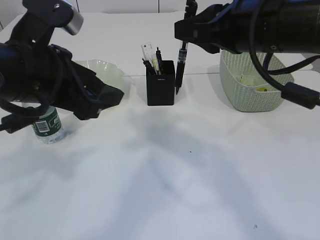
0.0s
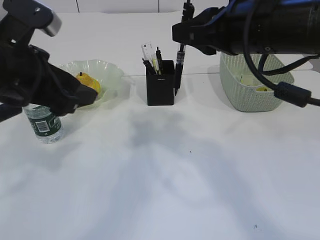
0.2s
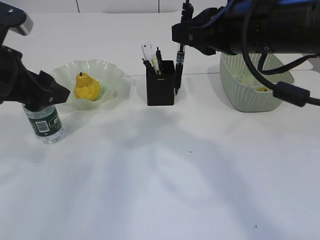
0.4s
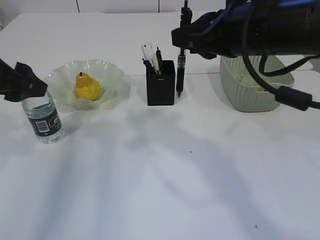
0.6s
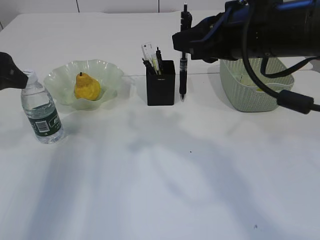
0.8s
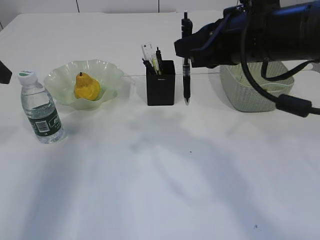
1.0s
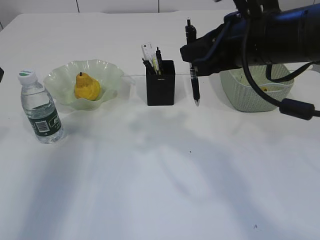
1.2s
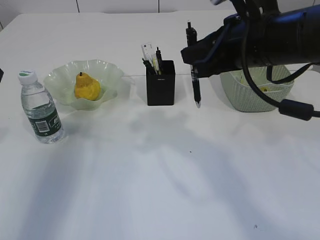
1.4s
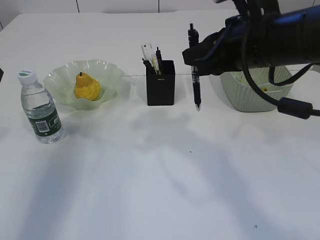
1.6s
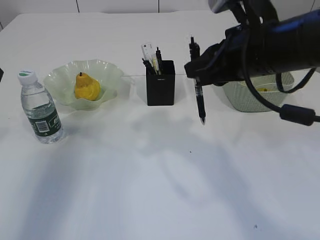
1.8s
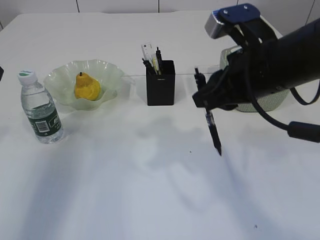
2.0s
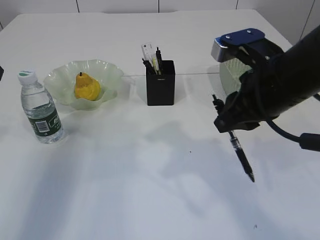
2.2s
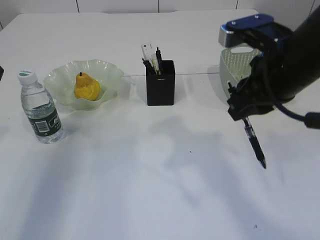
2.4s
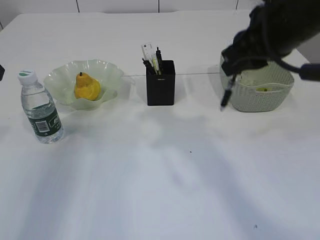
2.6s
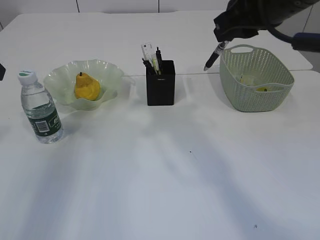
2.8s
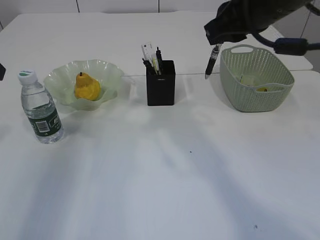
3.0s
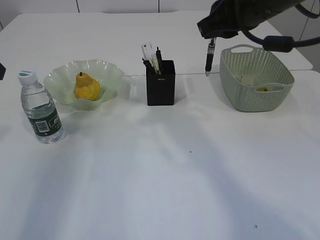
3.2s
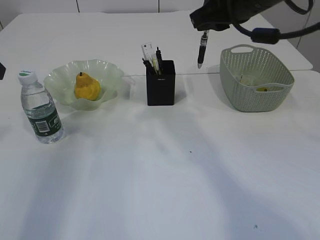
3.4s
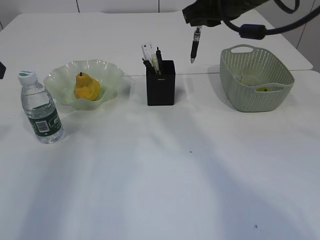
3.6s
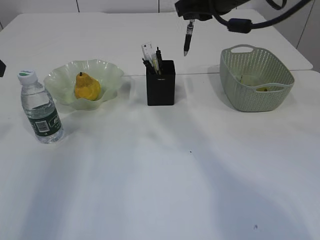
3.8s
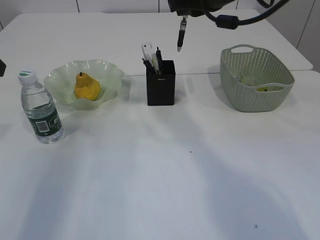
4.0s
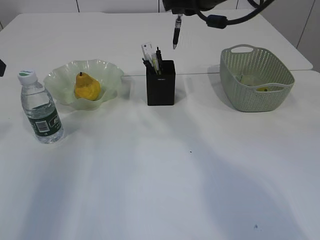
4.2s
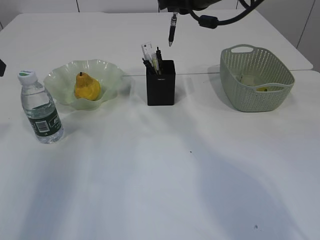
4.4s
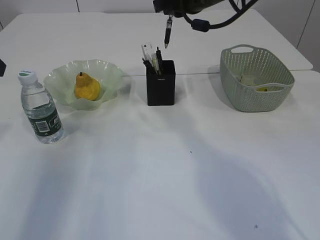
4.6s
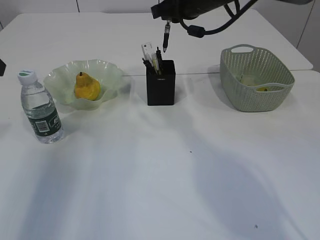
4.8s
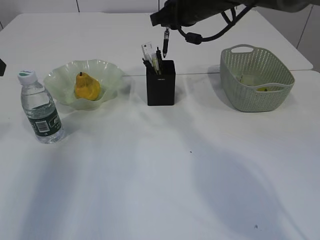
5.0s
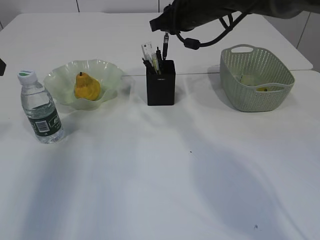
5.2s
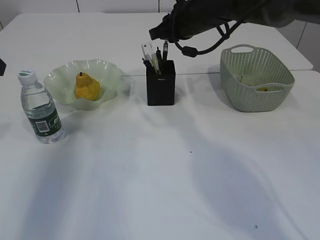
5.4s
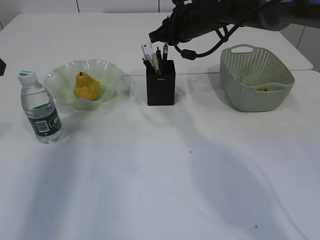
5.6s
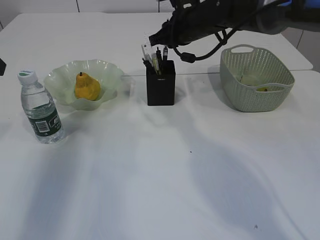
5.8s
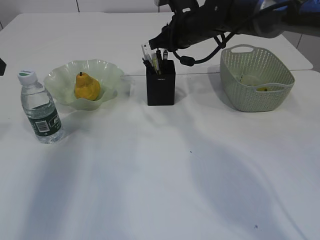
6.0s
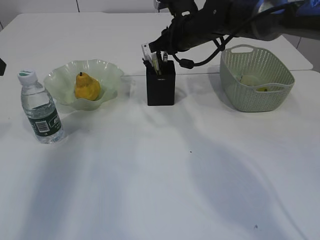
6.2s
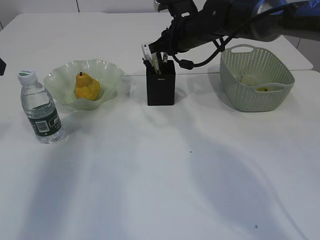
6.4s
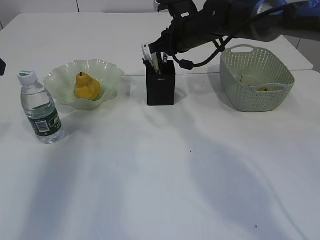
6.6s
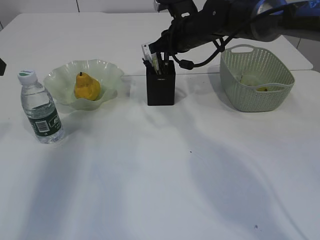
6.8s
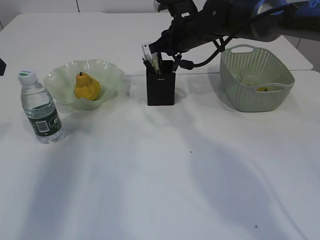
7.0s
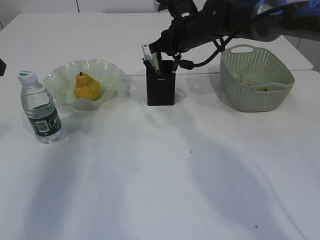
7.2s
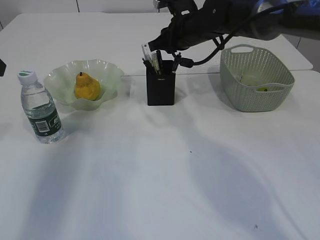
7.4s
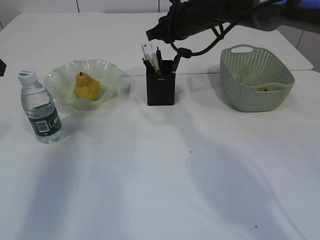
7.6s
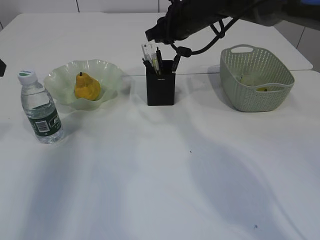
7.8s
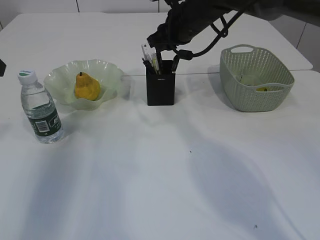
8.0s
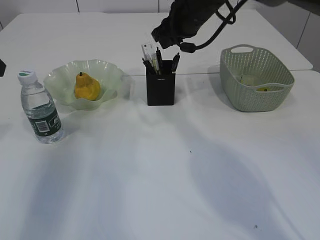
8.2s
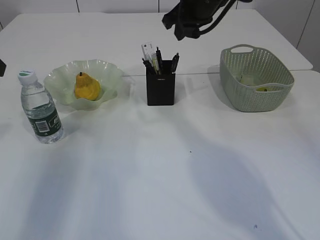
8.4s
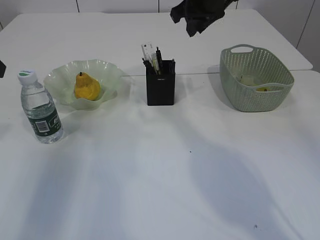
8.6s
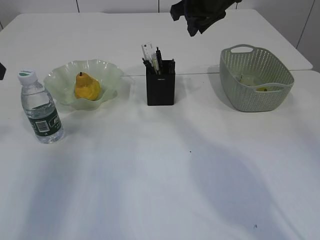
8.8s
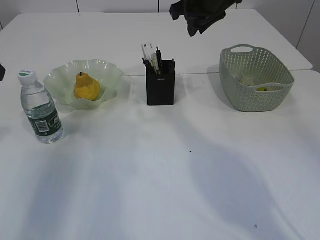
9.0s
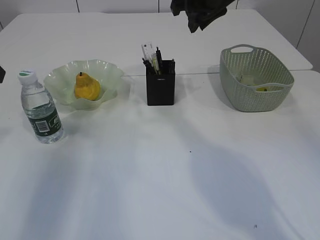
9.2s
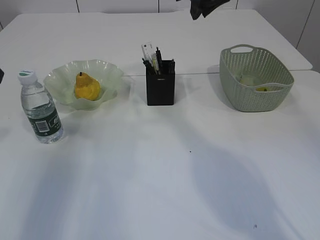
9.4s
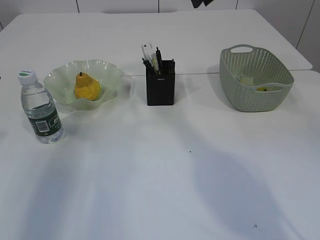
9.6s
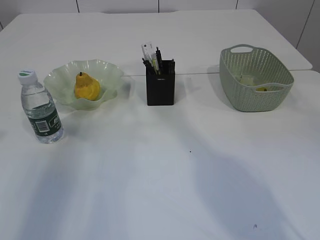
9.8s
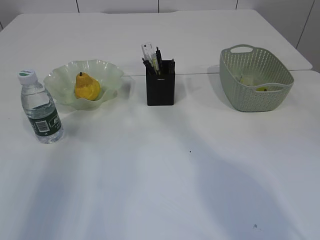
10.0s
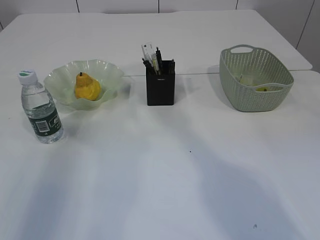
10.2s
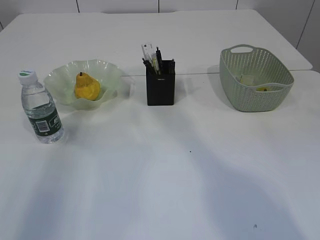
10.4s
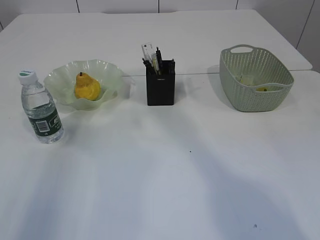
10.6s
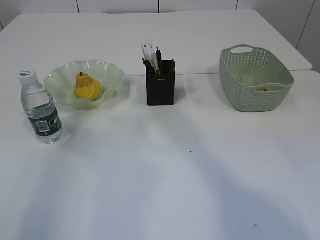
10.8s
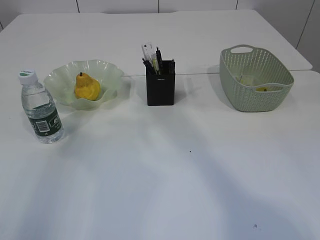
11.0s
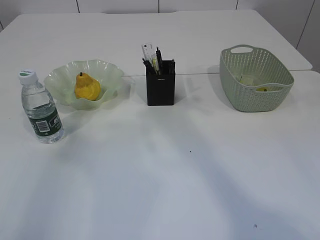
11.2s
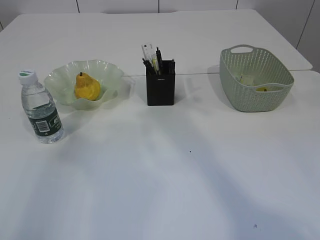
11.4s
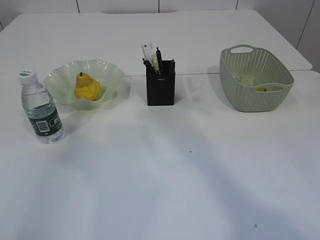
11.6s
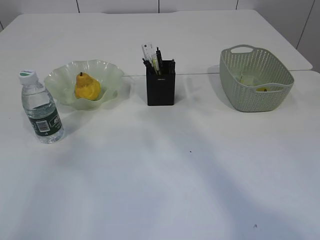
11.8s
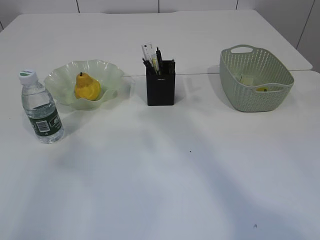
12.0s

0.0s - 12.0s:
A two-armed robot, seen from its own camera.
Step, 0.0s - 8.4s: Place the pen into the pen holder.
0.0s - 1.6s: The left gripper shifts approximately 15 cm to the left.
1.6s - 3.0s: The right gripper ends up roughly 5 cm from where it was.
3.0s - 4.4s: The right gripper heads forward, covering about 10 cm.
4.4s - 6.0s: The right gripper shifts some 10 cm downward and forward.
6.0s - 7.6s: Neither gripper changes place.
7.6s - 9.0s: The right gripper heads upward, covering approximately 5 cm.
9.0s - 10.4s: The right gripper goes approximately 15 cm upward and backward. Meanwhile the left gripper shifts about 10 cm backward and upward.

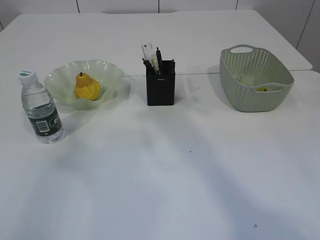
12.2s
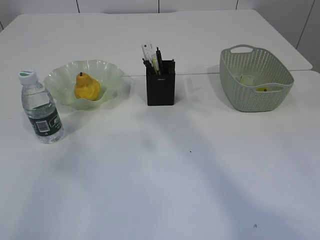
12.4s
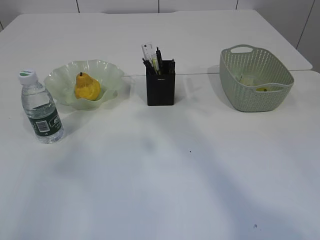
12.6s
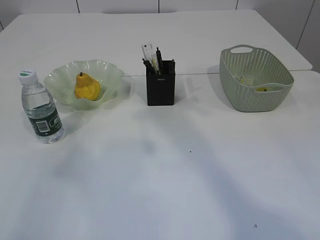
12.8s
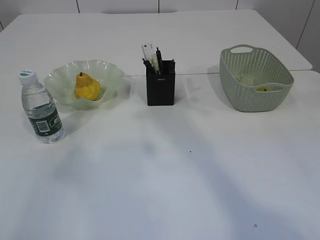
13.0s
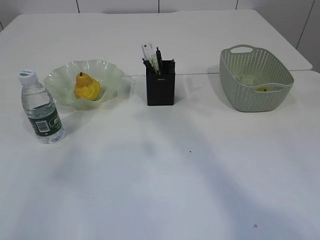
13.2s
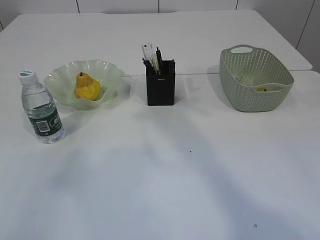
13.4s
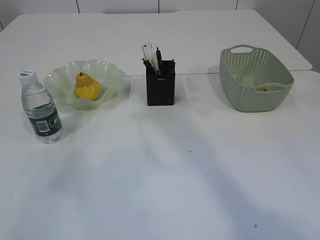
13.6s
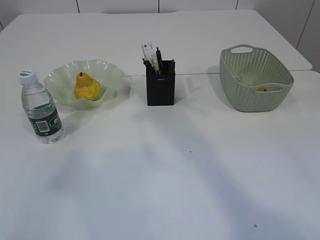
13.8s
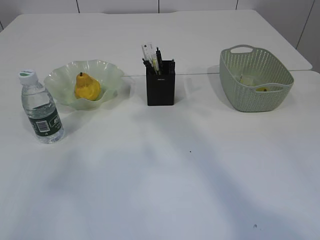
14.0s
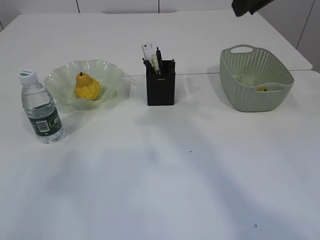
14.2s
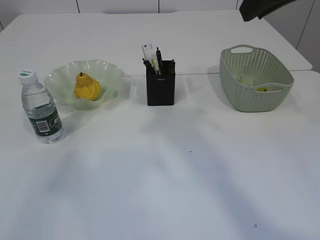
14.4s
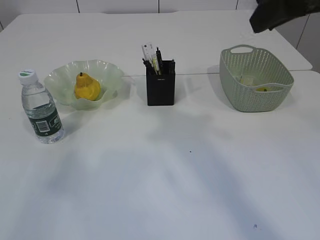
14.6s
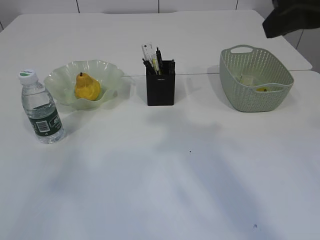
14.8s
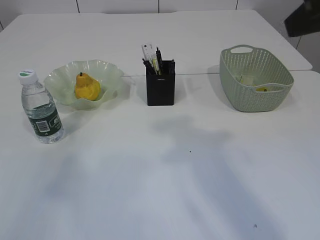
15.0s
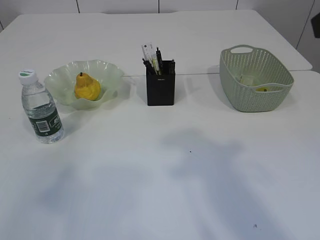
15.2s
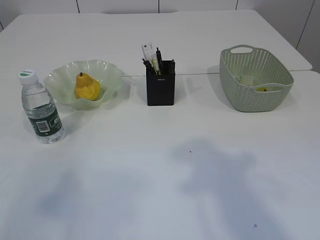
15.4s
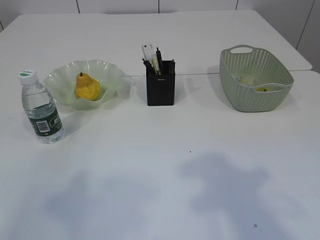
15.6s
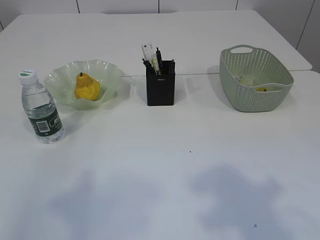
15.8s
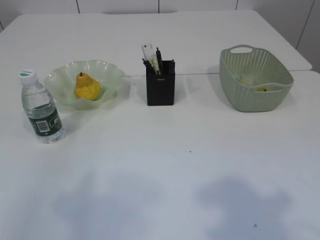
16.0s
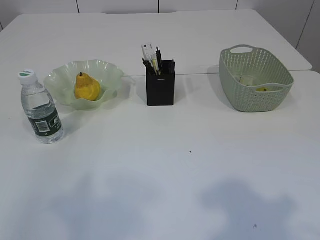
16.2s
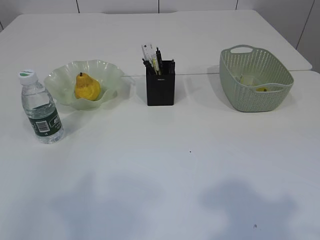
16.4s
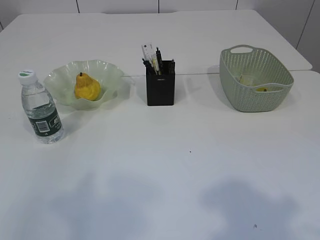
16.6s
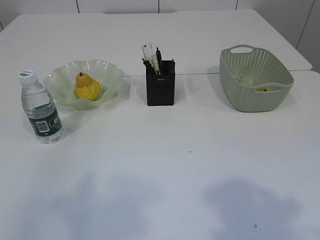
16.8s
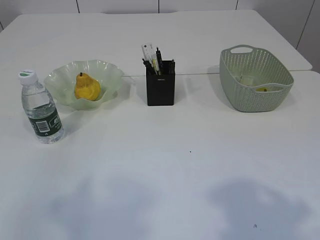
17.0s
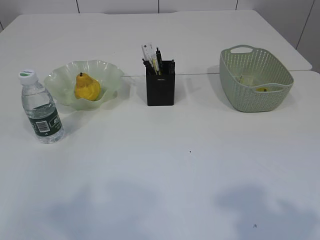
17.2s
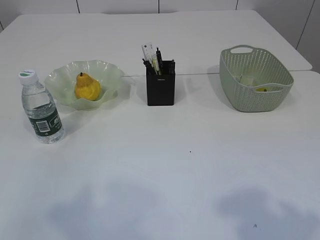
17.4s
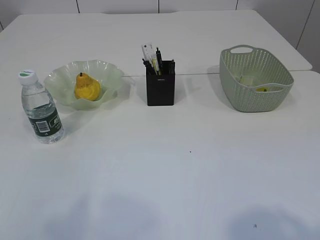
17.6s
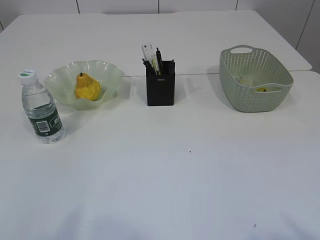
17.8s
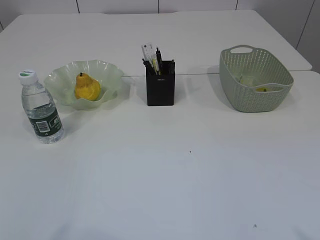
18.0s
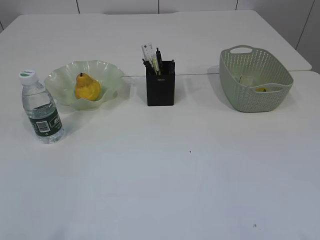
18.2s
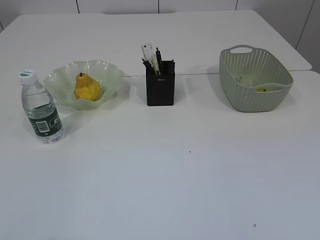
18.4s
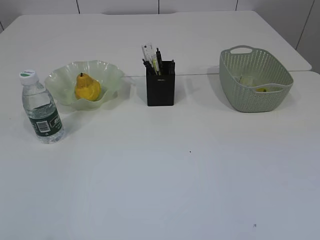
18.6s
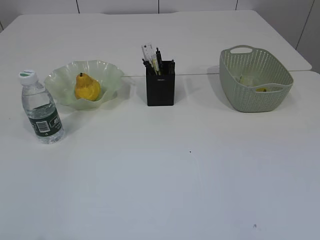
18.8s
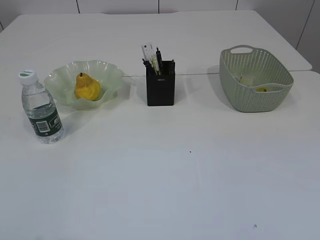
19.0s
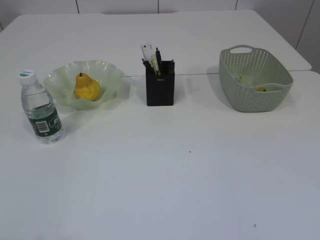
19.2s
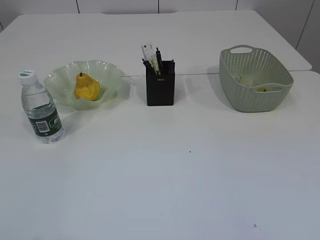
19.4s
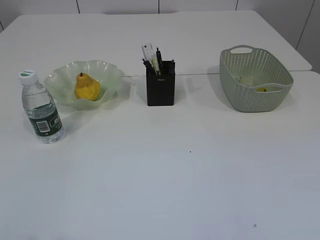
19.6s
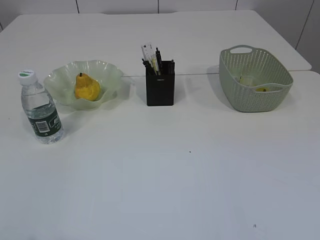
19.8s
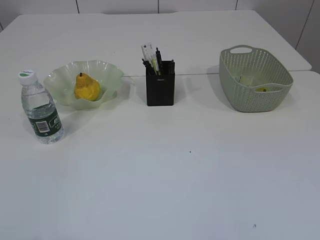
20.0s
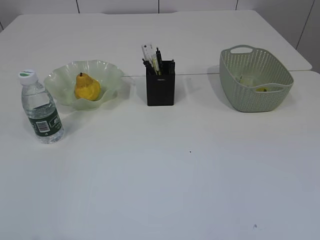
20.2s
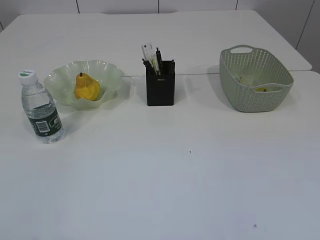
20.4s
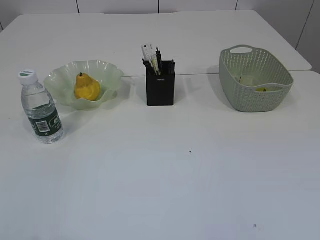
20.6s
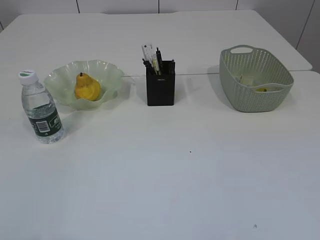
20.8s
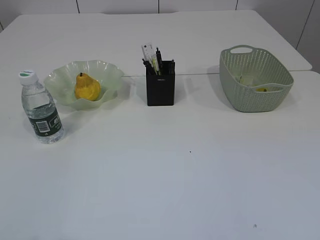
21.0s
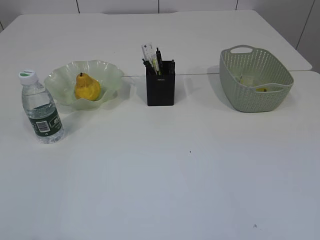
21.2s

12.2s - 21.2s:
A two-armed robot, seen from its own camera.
19.8s - 21.2s: Both grippers stay put.

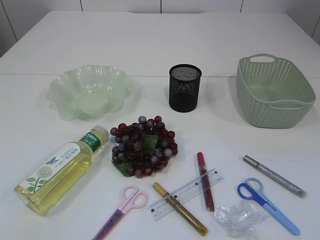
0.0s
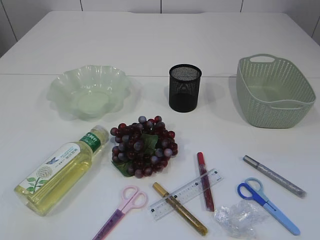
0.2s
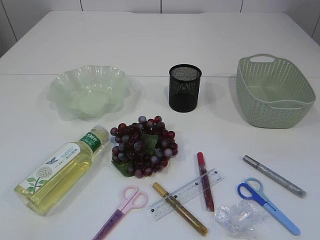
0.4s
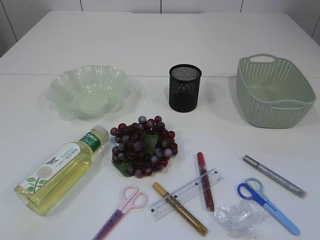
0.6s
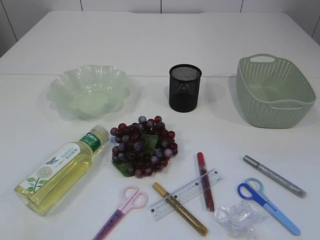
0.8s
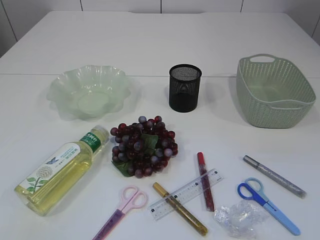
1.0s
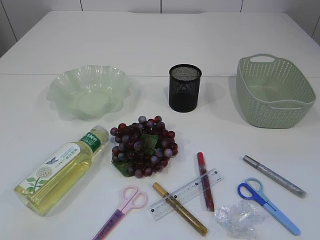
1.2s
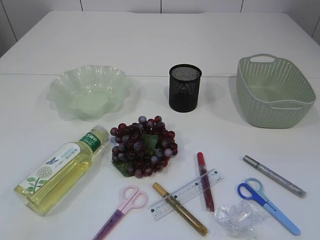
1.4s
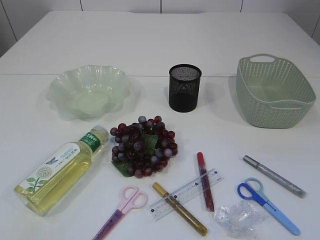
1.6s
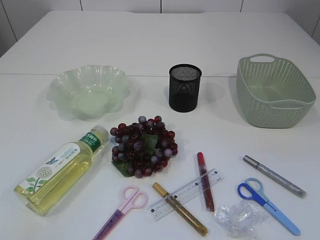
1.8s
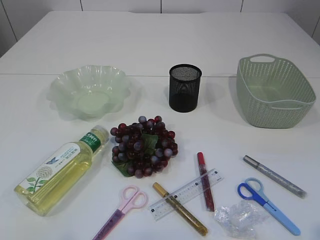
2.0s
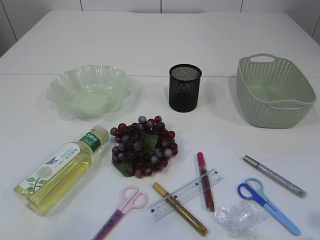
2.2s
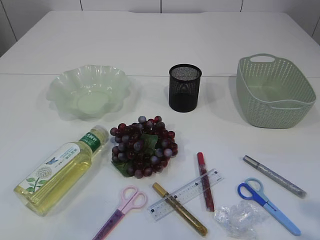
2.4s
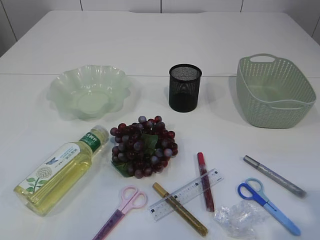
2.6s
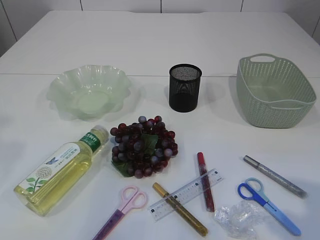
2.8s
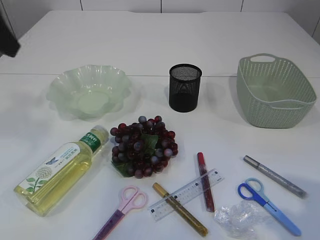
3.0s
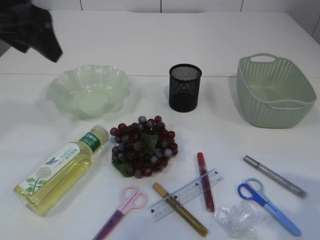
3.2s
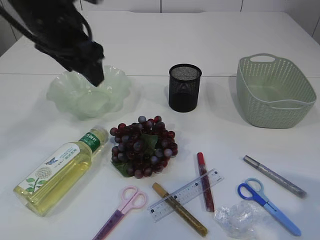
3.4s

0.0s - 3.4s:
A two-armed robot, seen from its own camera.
1.6s - 3.4s: The left gripper heads forward and to the right, covering some 40 cm. The right gripper heads forward, covering about 15 cm, and opens its fingers.
